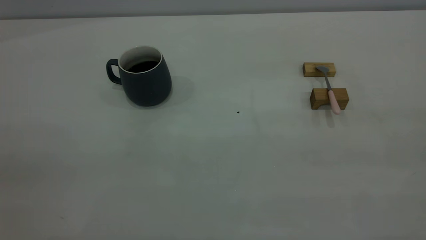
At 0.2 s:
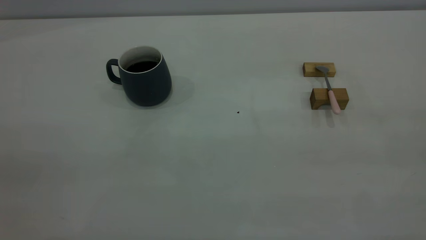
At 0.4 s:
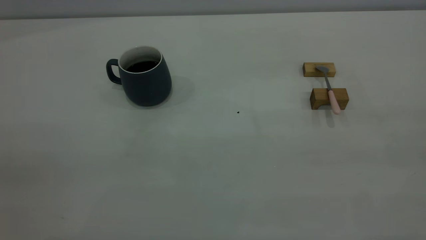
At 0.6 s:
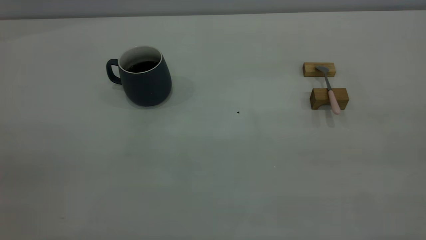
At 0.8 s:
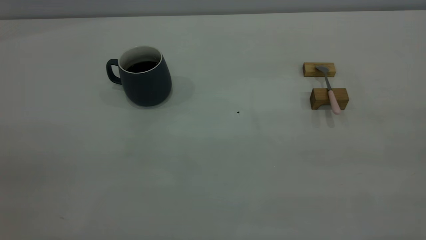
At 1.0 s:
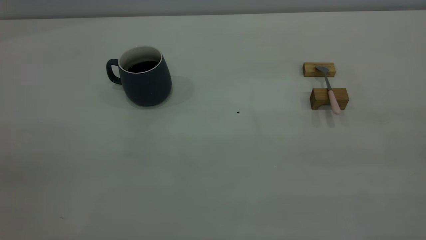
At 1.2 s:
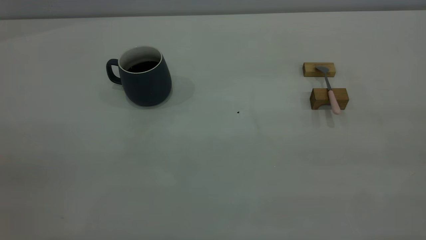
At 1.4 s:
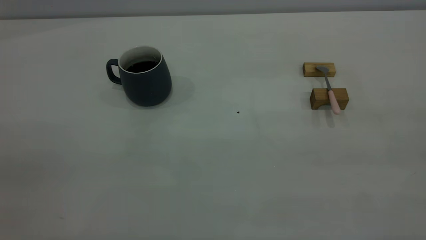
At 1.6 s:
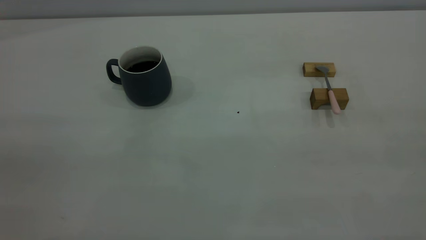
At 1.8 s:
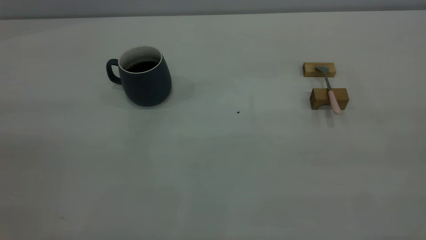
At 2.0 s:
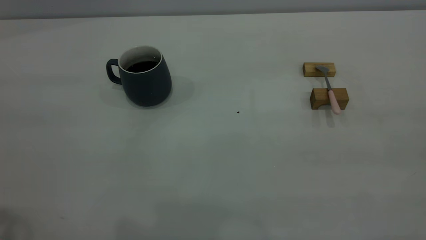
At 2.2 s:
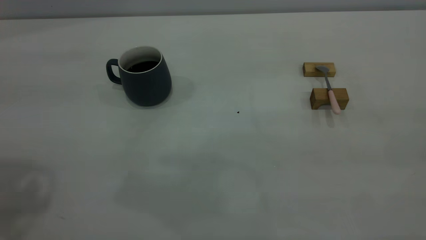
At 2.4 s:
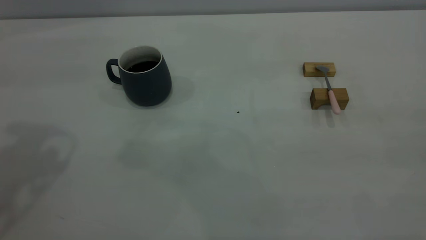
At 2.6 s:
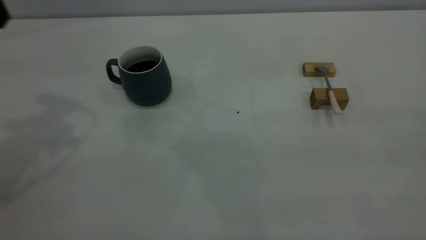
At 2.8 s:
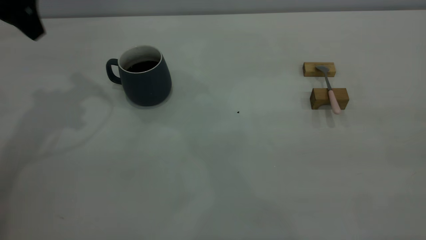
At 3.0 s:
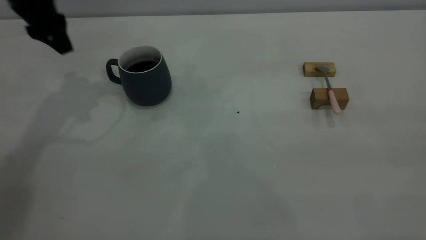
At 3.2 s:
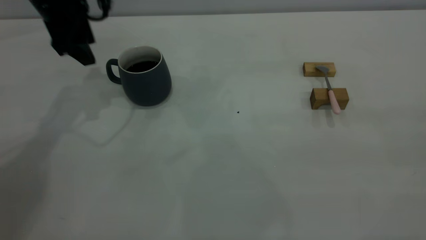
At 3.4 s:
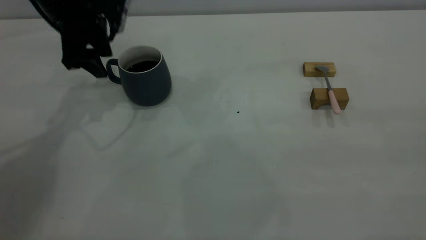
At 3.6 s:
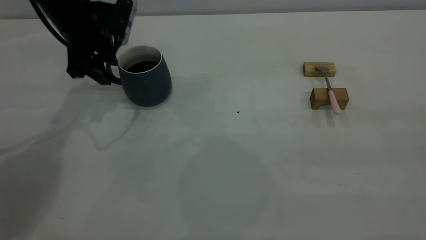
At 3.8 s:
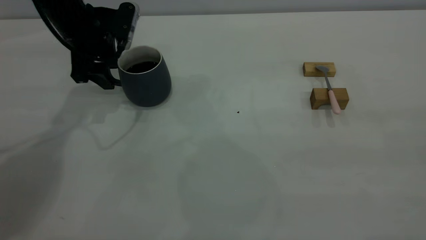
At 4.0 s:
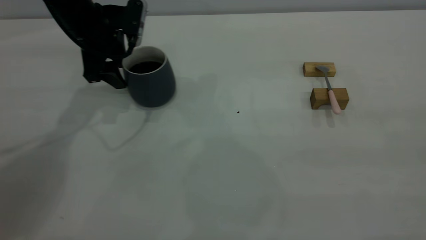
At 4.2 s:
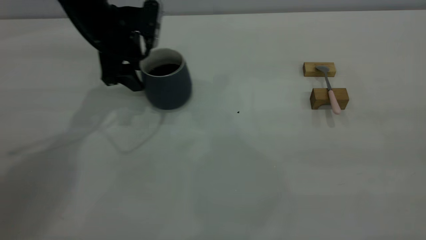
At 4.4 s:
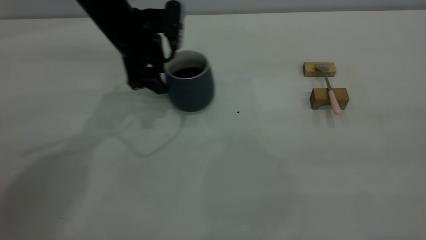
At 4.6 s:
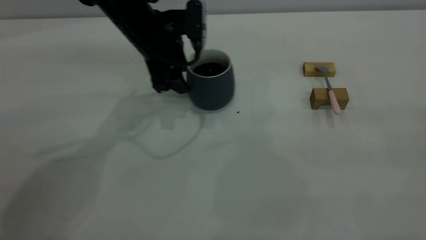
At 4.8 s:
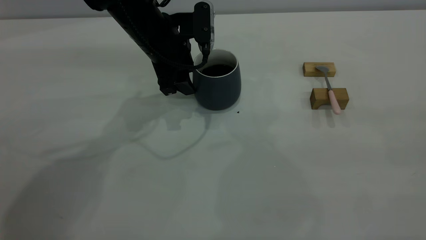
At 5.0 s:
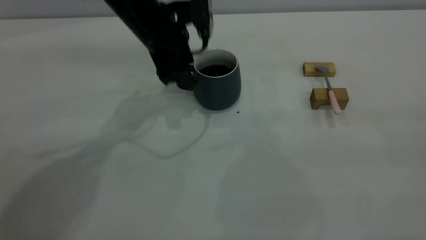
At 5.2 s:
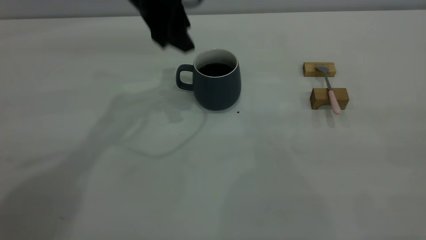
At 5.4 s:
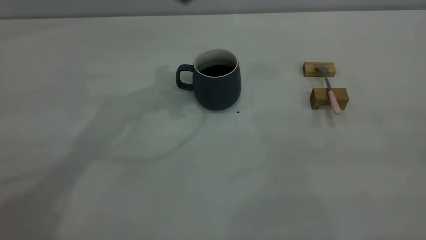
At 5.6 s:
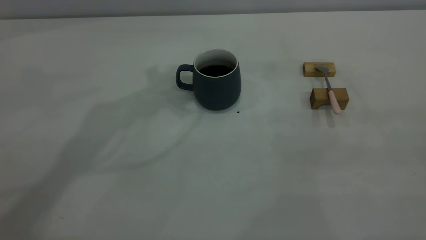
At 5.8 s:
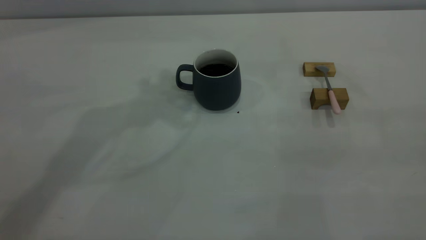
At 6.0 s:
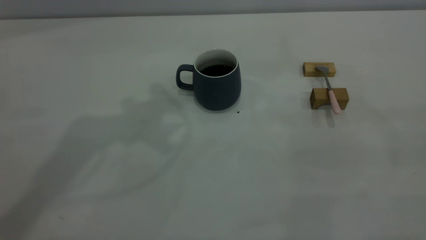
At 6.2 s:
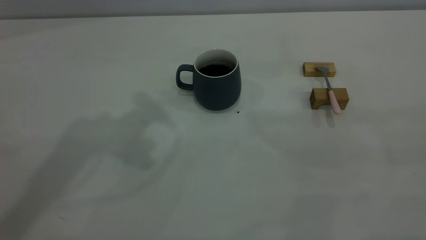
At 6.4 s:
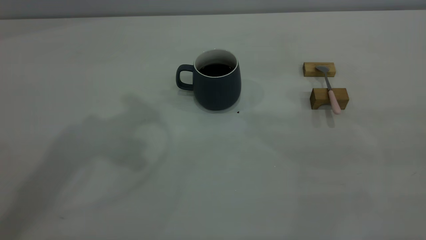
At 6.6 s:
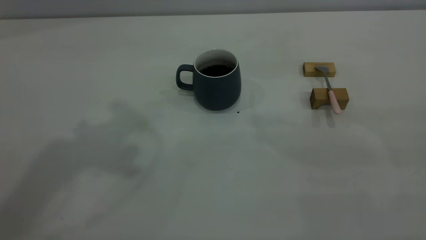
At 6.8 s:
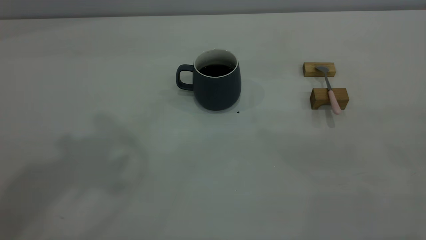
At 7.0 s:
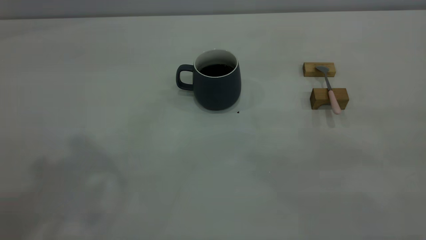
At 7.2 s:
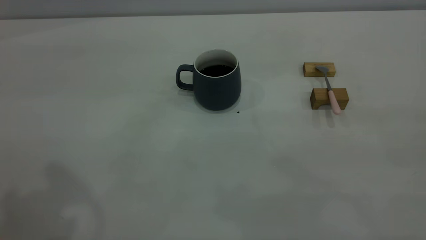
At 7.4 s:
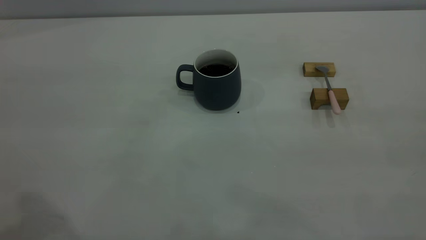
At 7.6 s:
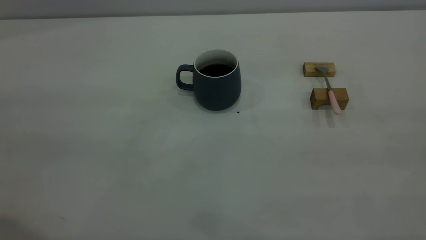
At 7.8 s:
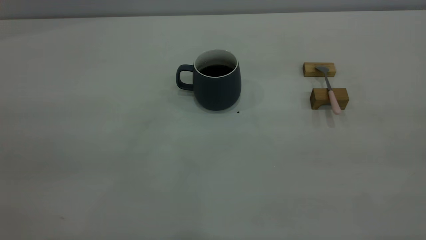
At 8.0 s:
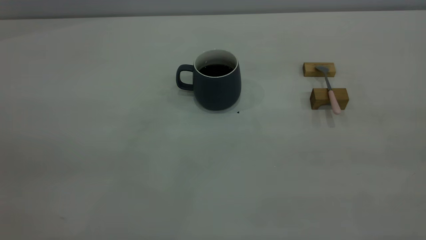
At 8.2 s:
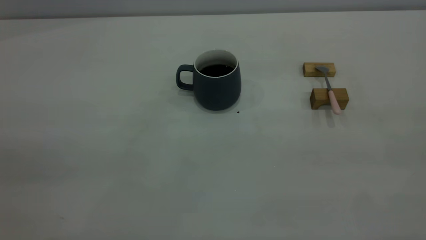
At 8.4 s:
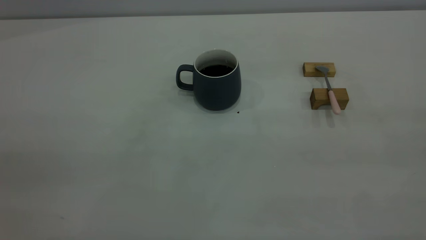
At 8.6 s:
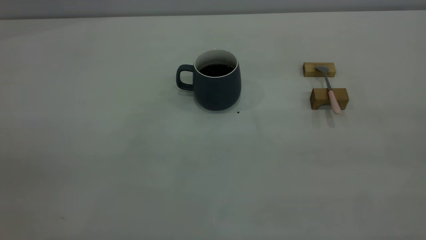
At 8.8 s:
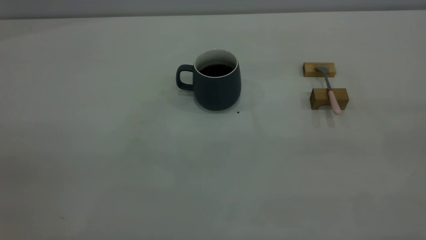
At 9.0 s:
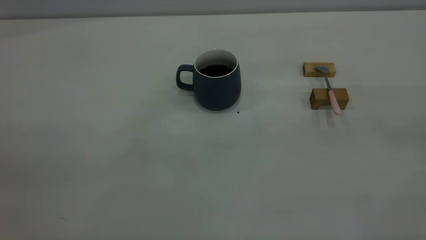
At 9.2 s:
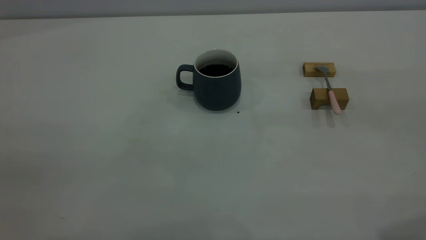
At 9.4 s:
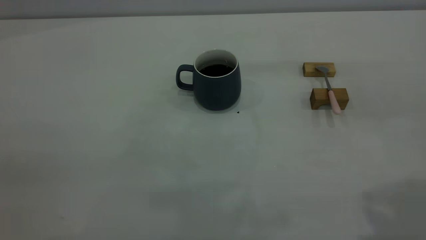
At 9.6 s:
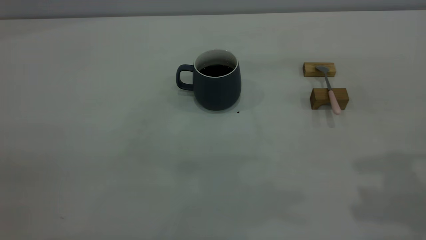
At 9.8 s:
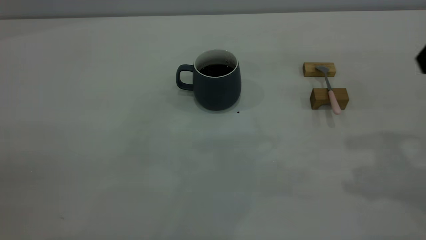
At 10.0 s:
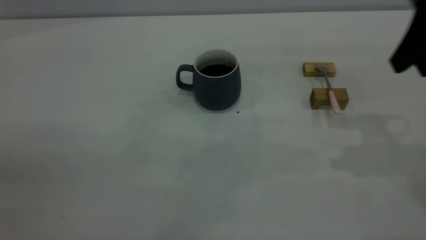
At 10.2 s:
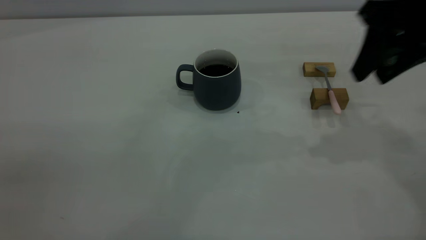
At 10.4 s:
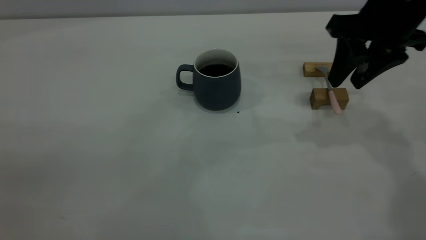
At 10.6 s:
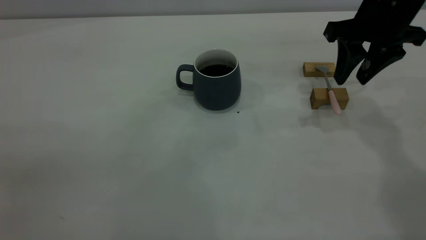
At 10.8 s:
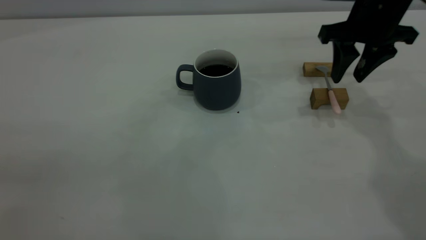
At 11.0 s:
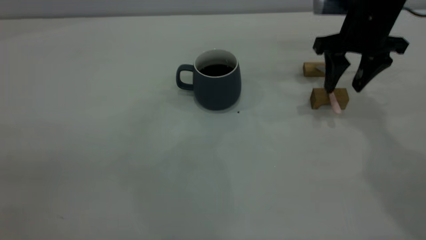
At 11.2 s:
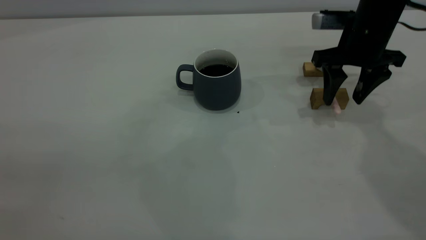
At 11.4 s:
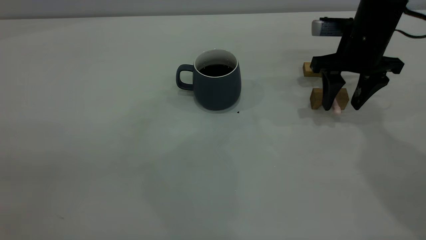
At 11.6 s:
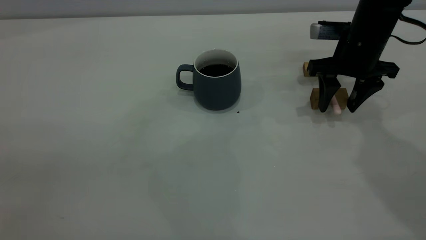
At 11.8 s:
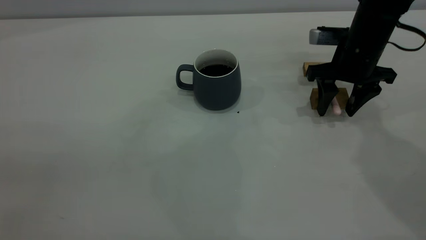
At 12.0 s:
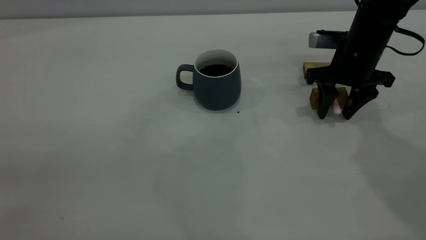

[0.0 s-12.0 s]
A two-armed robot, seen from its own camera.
Step, 0.0 to 5.0 s: Move the cup with coffee to the center of view.
1.6 to 3.0 s: The left gripper travels forward by about 40 cm.
3.0 to 4.4 s: The left gripper travels to the right and downward by some 15 cm.
4.4 to 6.0 s: The left gripper shifts approximately 25 cm upward.
9.0 to 10.4 s: The right gripper heads forward and downward, covering some 35 cm.
10.4 to 12.0 s: The right gripper travels downward and forward by about 15 cm.

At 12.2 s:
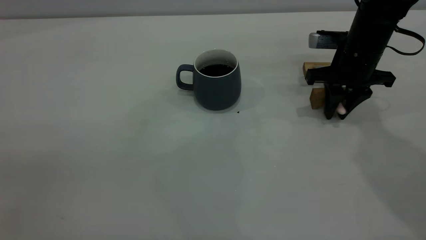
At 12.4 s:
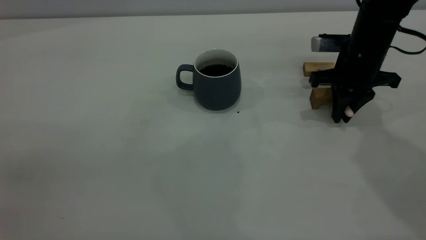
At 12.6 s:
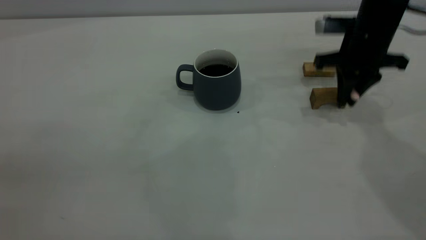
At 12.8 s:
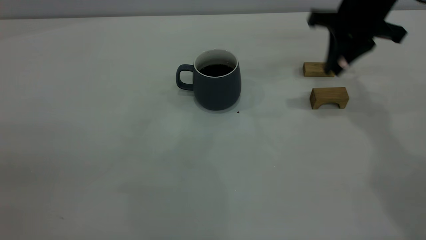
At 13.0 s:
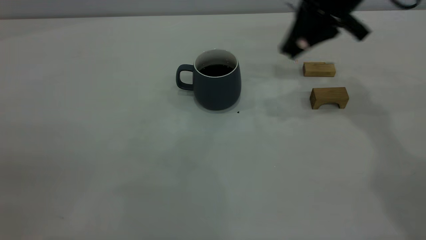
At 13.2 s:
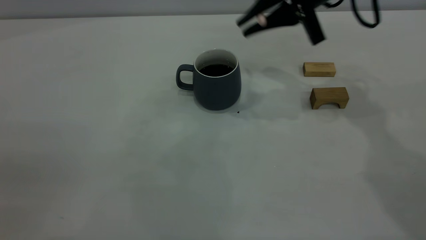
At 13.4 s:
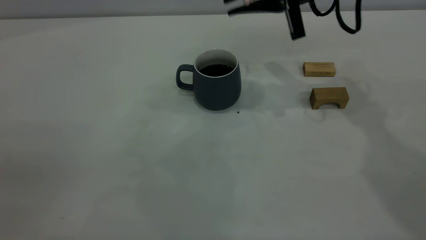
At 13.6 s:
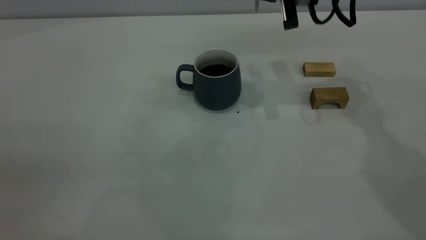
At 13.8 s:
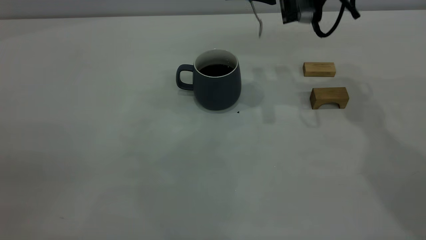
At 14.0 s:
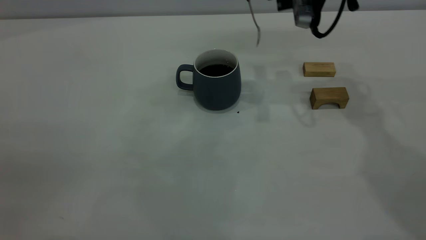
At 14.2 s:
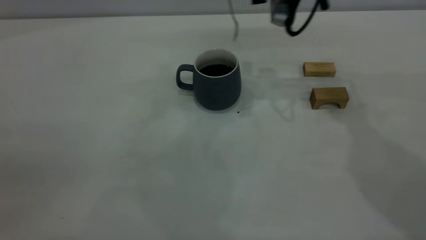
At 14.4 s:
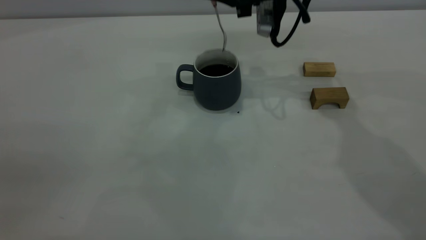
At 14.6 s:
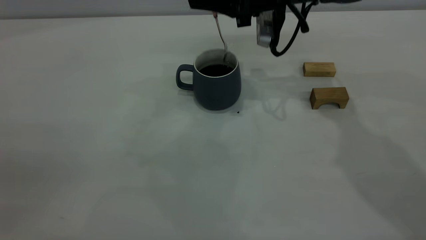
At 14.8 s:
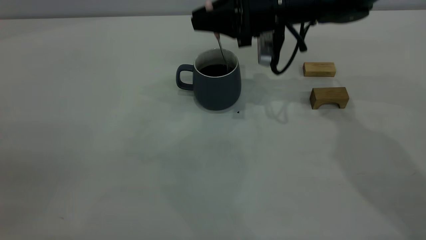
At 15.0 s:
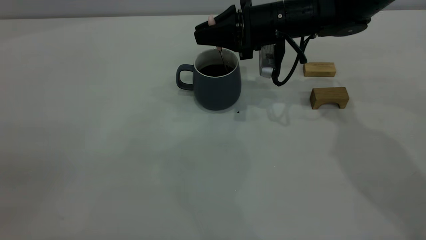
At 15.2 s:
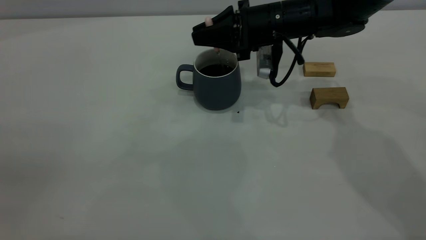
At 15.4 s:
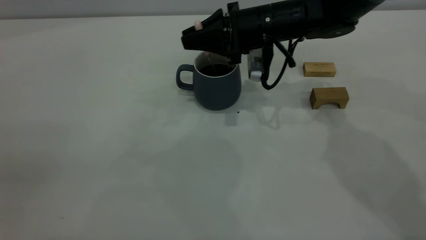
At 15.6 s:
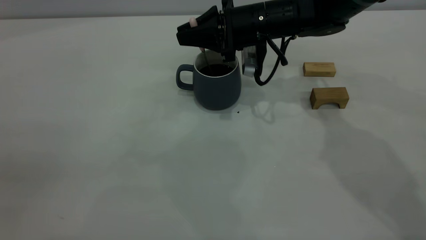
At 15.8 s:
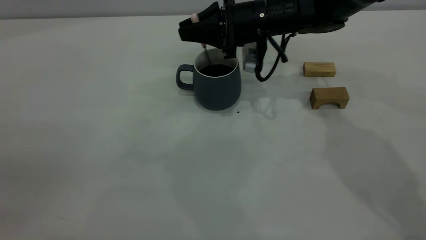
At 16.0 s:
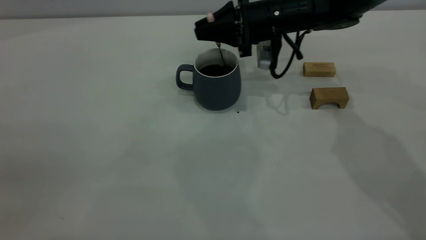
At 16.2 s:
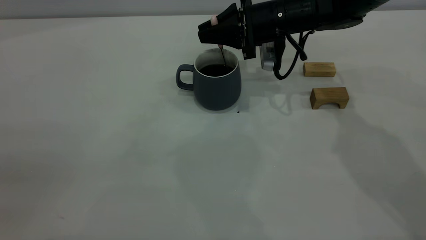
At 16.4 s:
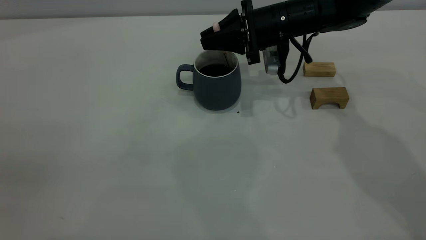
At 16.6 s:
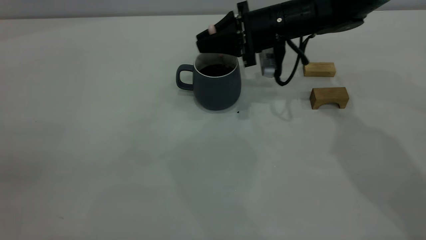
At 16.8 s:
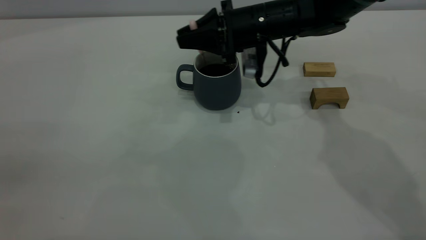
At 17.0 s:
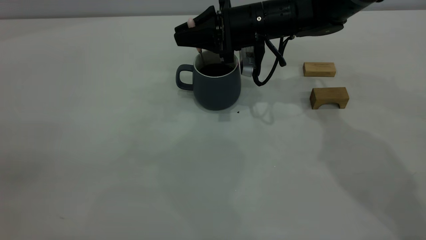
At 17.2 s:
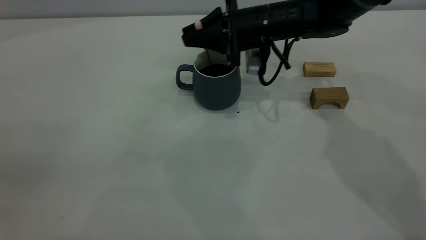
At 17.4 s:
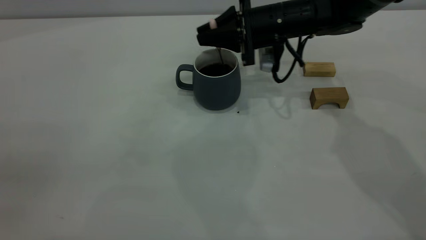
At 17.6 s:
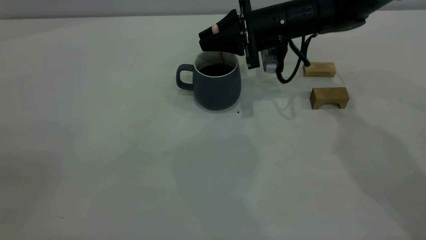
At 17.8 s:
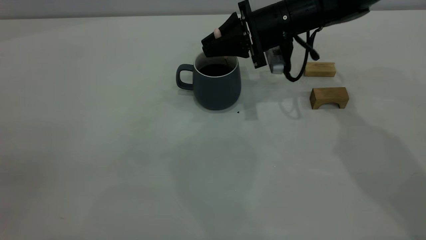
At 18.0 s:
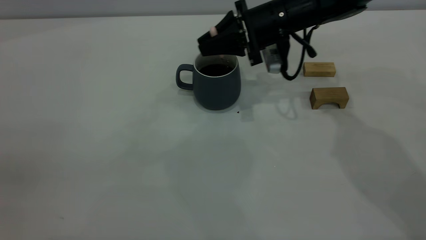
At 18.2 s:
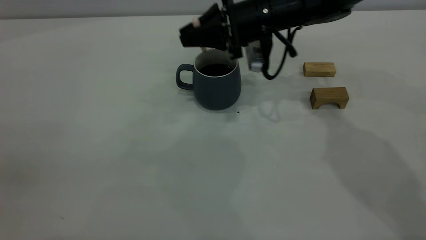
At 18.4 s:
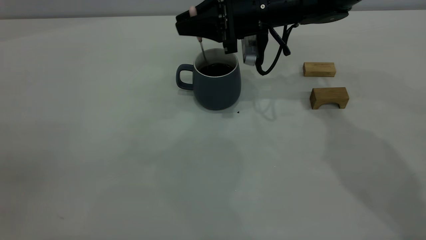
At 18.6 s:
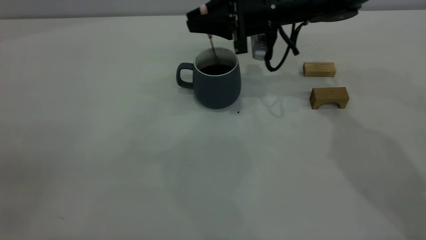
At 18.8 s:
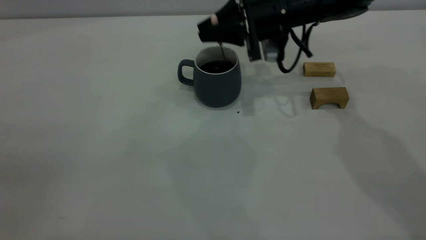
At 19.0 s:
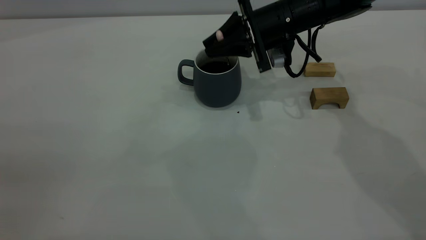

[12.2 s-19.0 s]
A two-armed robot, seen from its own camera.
12.2 to 13.6 s: The right gripper moves upward and to the left, roughly 15 cm.
13.6 to 15.0 s: The right gripper moves downward, some 10 cm.
15.0 to 17.6 s: The grippers move only a little.
17.6 to 19.0 s: There are only small adjustments of the grippers.
